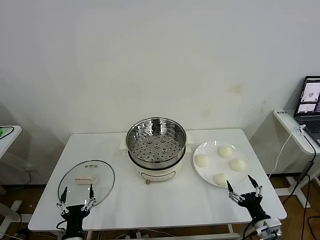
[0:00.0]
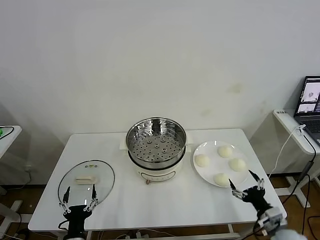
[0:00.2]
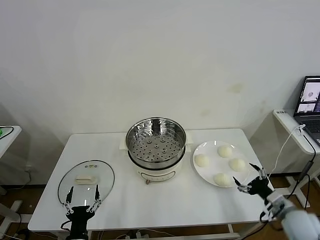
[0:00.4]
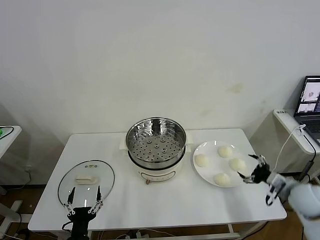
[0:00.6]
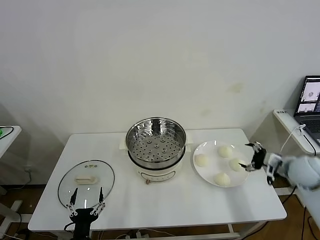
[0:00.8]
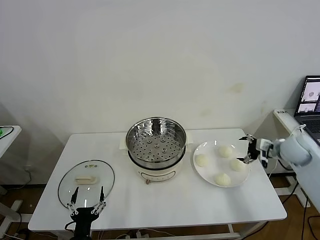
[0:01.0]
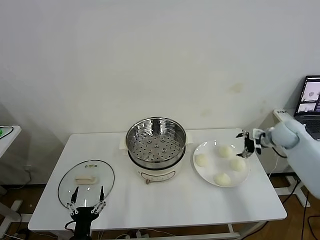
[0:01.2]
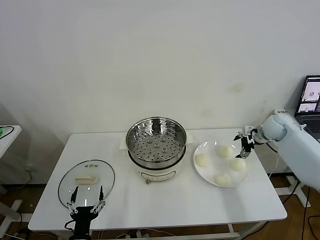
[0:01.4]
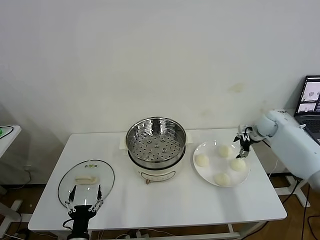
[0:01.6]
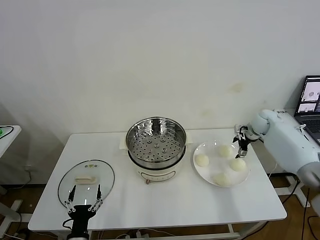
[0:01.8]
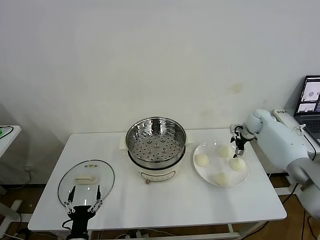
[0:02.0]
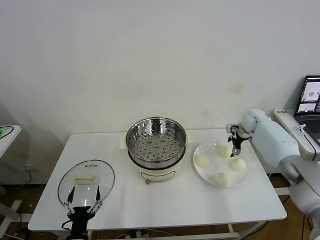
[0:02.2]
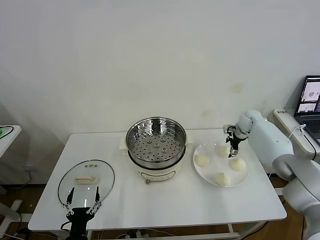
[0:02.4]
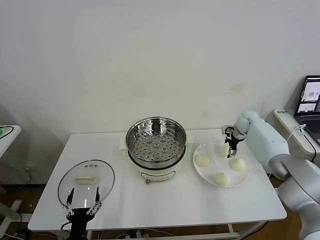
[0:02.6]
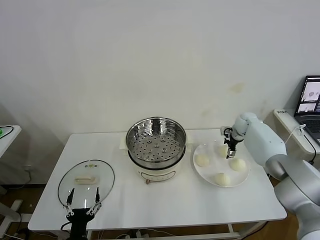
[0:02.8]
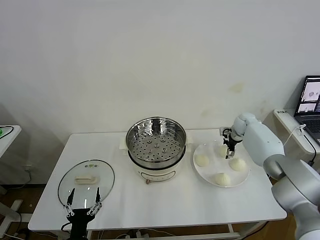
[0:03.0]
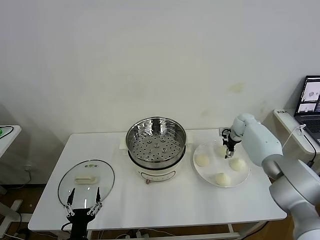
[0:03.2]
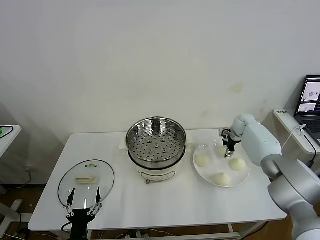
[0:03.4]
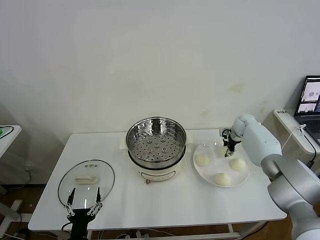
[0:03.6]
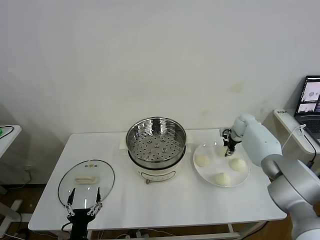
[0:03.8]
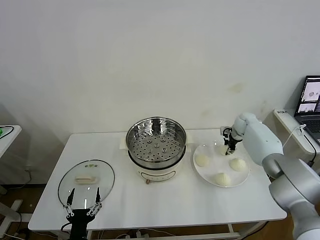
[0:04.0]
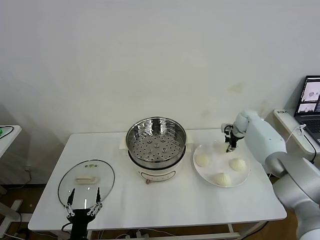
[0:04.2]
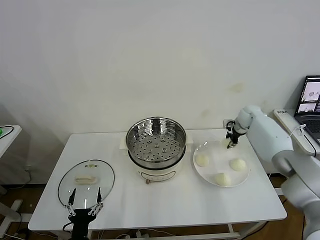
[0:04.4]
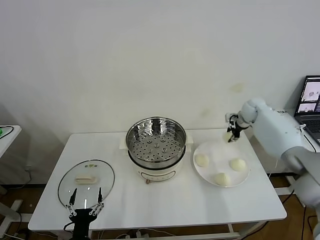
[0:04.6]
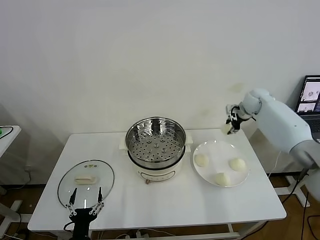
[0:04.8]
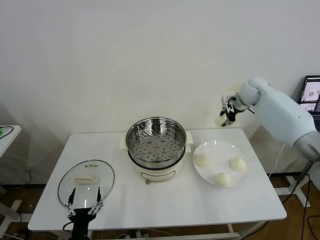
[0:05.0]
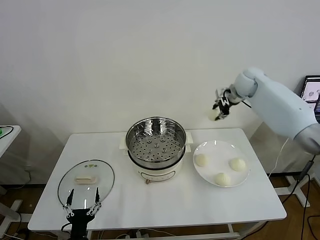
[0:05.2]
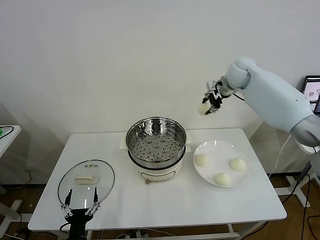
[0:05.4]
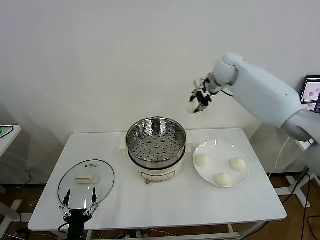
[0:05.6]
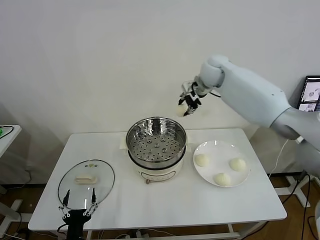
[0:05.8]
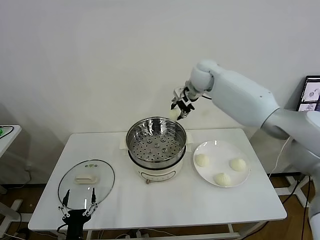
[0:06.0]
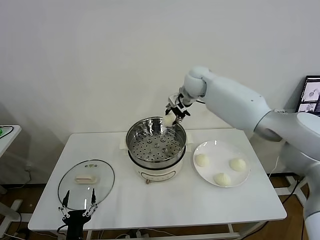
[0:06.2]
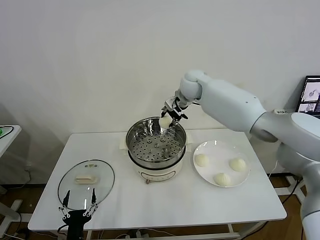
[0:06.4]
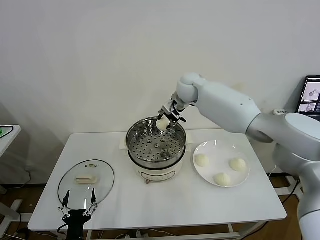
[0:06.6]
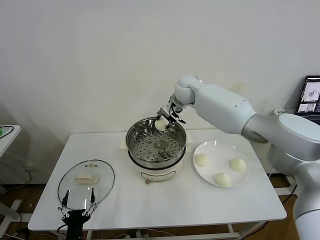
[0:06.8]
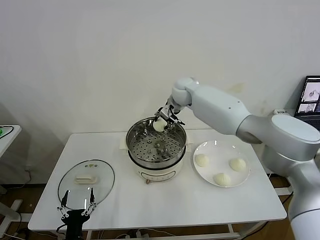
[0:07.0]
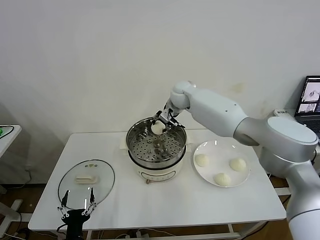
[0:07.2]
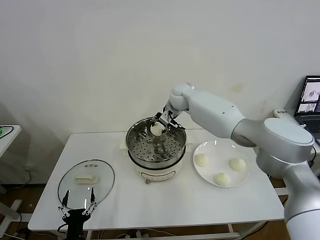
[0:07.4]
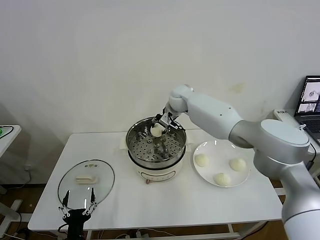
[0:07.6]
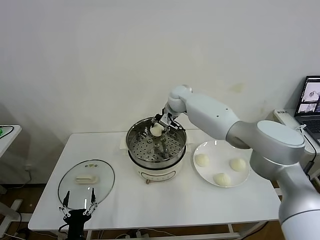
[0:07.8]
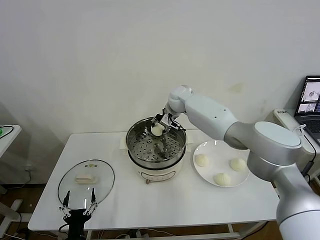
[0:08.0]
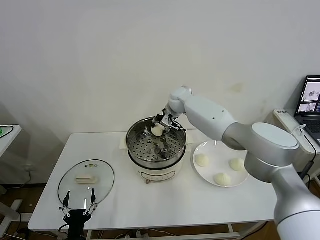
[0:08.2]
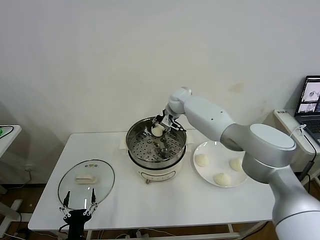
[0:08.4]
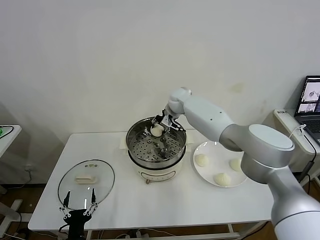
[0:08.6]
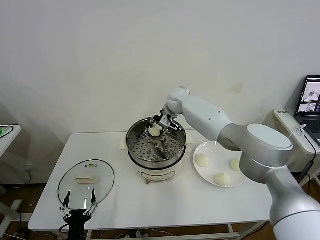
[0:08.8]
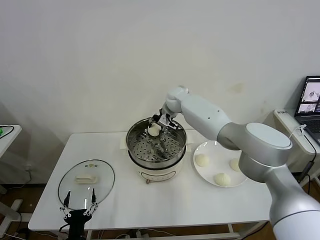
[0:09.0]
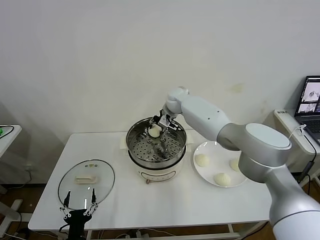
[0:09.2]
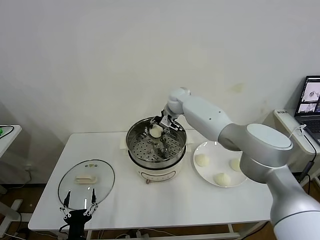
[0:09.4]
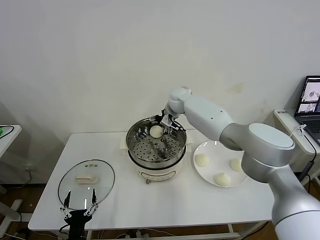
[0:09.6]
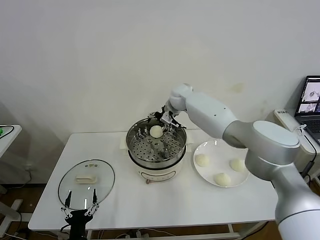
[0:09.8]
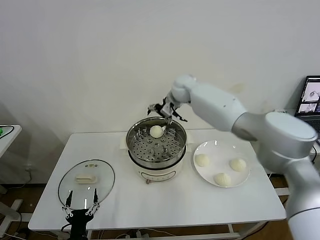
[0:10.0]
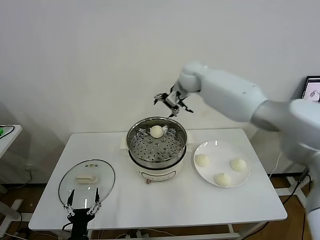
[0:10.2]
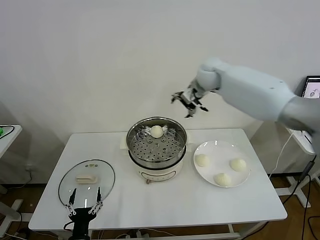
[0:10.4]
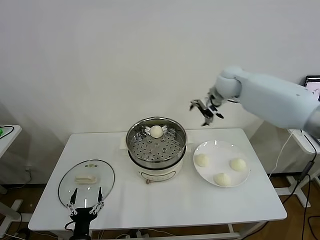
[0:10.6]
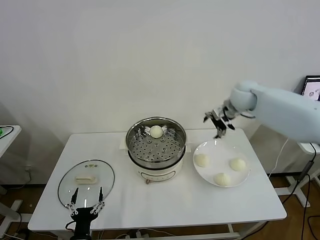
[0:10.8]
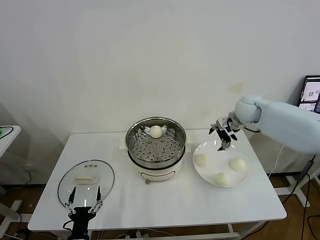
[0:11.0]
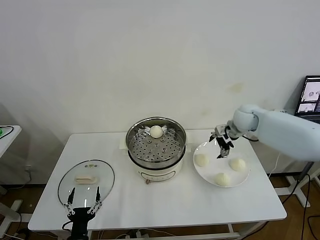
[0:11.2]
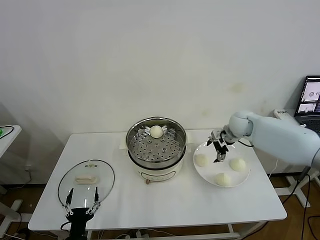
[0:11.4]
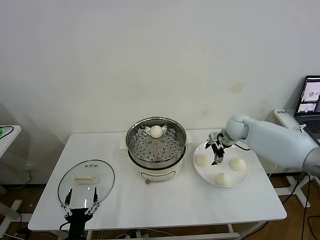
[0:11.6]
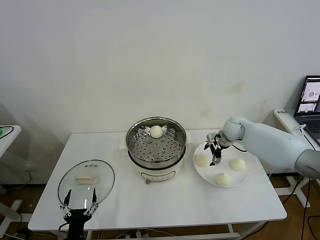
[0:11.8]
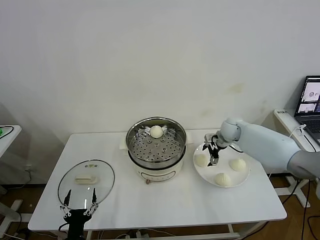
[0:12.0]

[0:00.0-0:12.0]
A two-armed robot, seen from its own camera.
Task of the whole recording: take steamed baozi put them in steamer then cover it.
Step, 0:00.0 to 0:03.8: Grasp the baozi in the plate with right gripper.
Step, 0:04.0 to 0:09.6: Place the baozi on the steamer with right gripper.
0:01.6 to 0:03.0: The right gripper shifts approximately 5 cm downward and to the left.
0:03.0 to 0:04.4: The right gripper heads upward, covering approximately 5 cm, and closes its fingers.
0:04.4 to 0:06.0: The right gripper travels to the left and upward by approximately 30 cm.
0:06.0 to 0:07.6: The right gripper heads downward and to the left, covering roughly 10 cm.
0:07.6 to 0:09.0: The grippers move only a little.
0:09.0 to 0:10.4: The right gripper shifts about 20 cm to the right and upward, and opens.
0:10.4 to 0:12.0: The right gripper is displaced downward by approximately 20 cm.

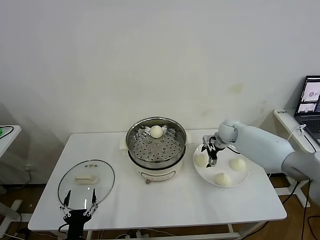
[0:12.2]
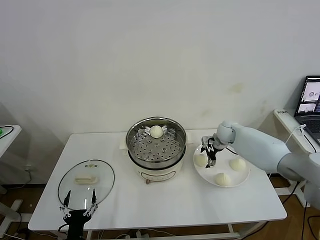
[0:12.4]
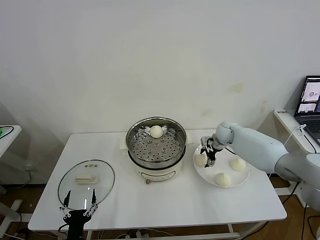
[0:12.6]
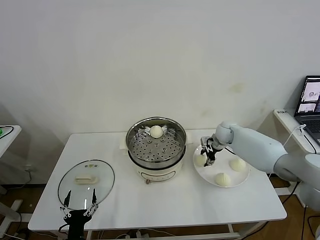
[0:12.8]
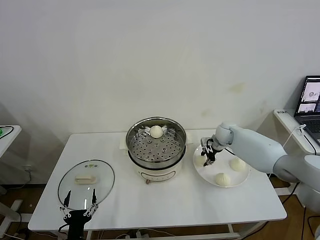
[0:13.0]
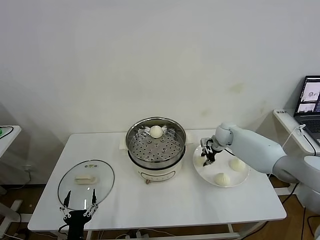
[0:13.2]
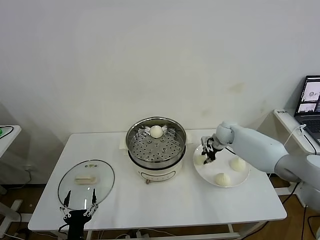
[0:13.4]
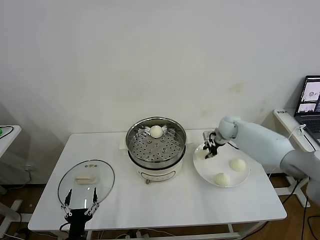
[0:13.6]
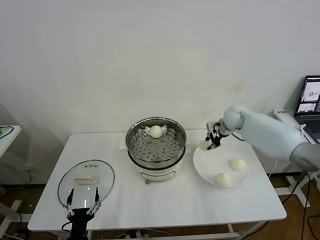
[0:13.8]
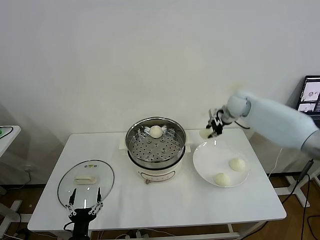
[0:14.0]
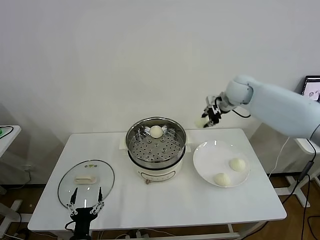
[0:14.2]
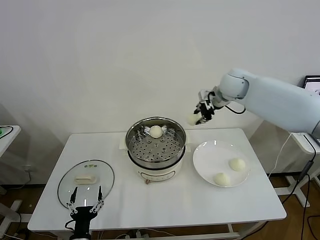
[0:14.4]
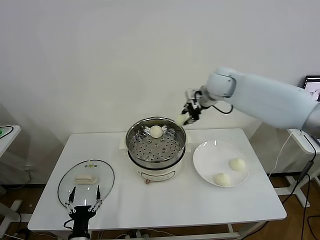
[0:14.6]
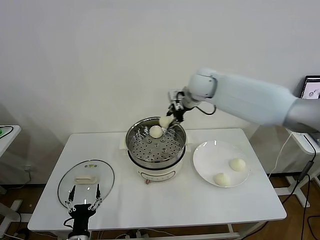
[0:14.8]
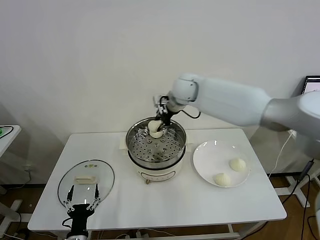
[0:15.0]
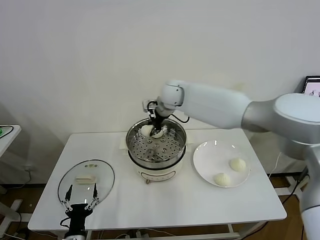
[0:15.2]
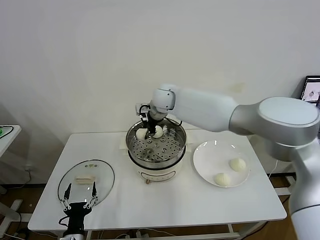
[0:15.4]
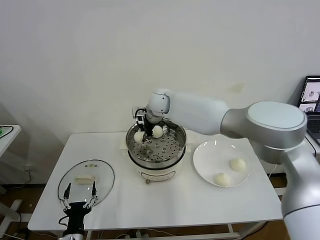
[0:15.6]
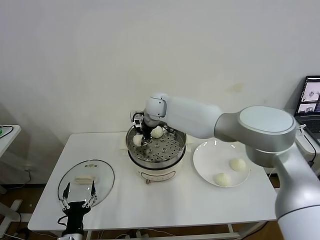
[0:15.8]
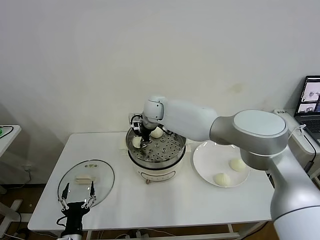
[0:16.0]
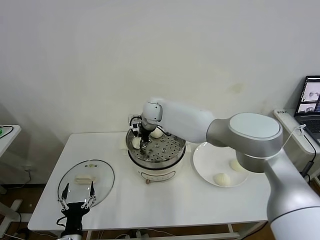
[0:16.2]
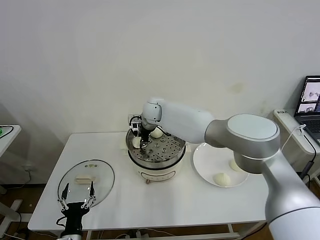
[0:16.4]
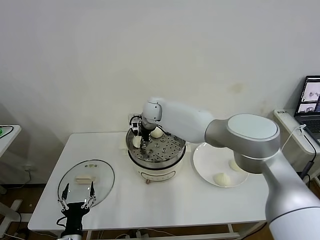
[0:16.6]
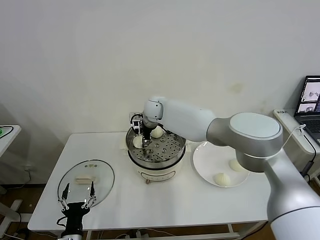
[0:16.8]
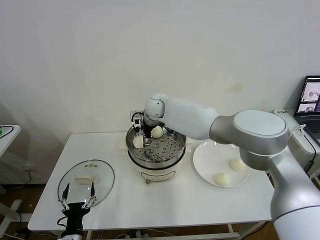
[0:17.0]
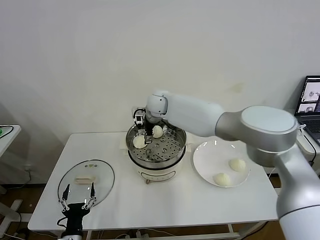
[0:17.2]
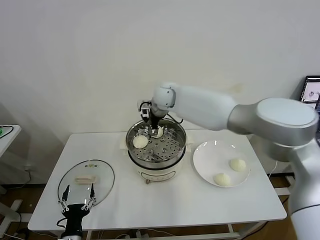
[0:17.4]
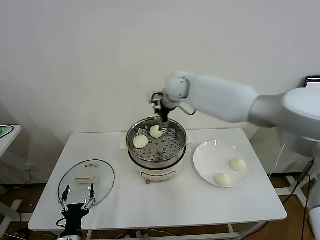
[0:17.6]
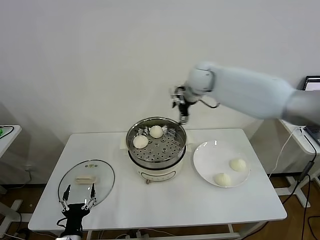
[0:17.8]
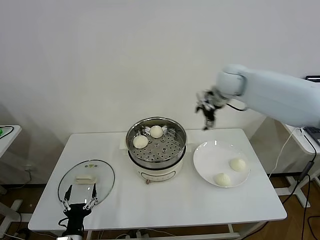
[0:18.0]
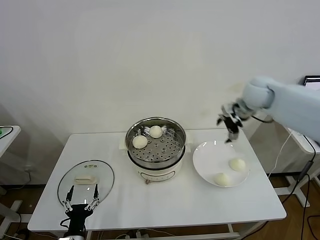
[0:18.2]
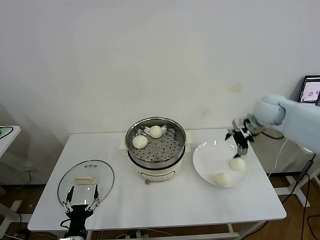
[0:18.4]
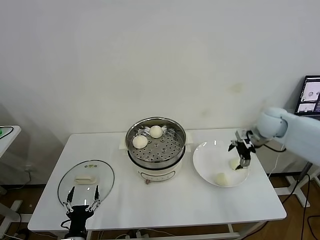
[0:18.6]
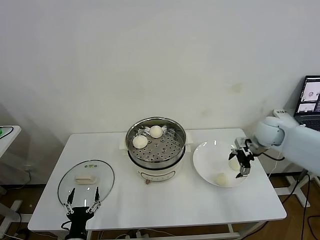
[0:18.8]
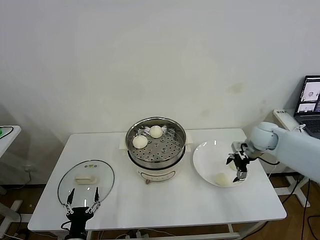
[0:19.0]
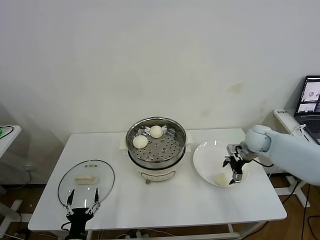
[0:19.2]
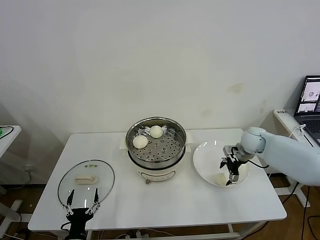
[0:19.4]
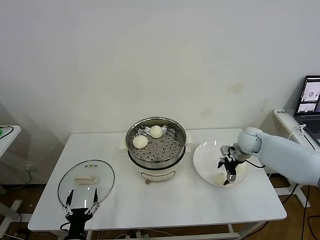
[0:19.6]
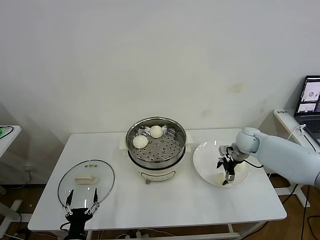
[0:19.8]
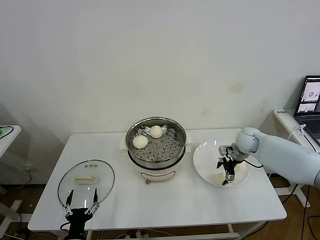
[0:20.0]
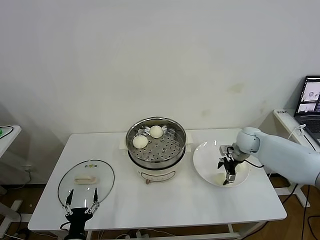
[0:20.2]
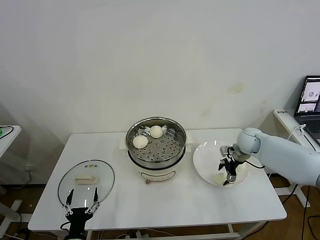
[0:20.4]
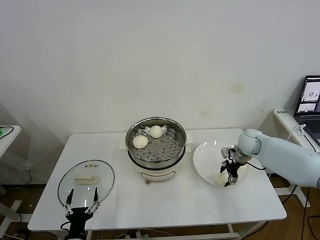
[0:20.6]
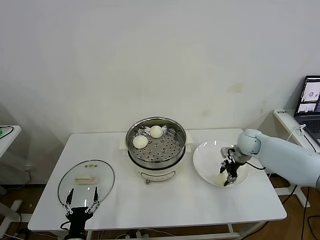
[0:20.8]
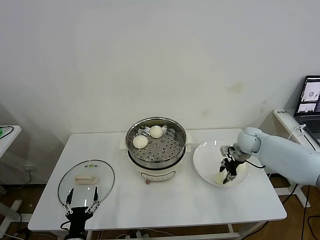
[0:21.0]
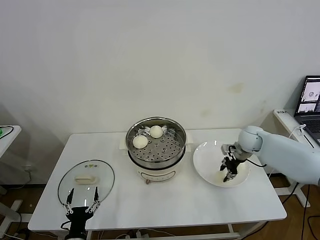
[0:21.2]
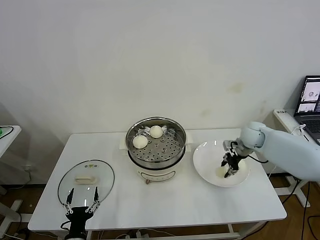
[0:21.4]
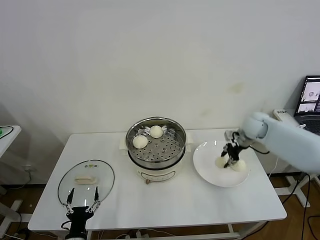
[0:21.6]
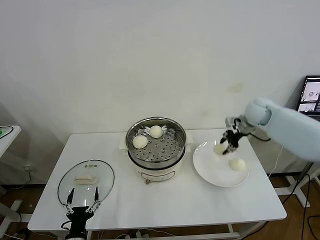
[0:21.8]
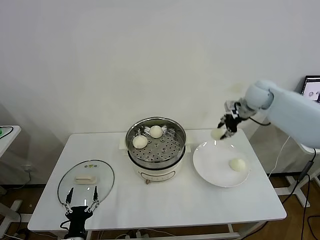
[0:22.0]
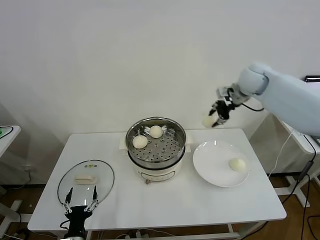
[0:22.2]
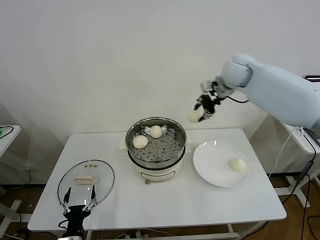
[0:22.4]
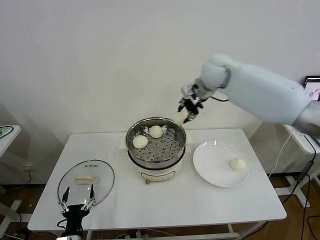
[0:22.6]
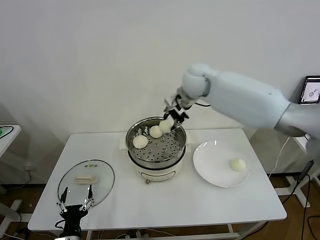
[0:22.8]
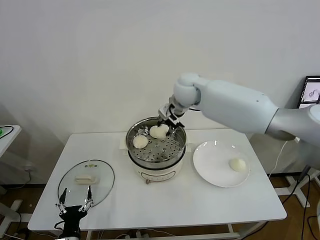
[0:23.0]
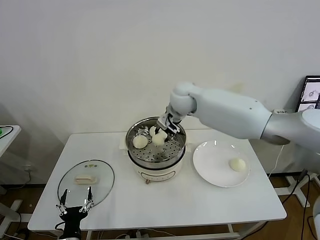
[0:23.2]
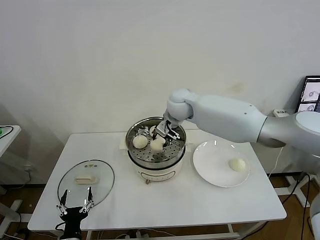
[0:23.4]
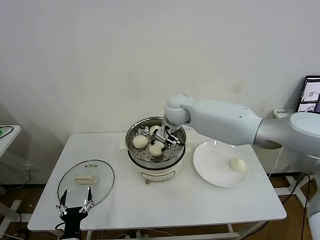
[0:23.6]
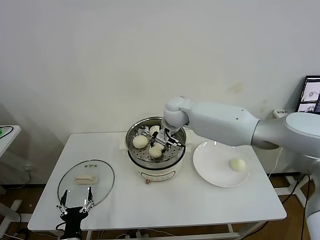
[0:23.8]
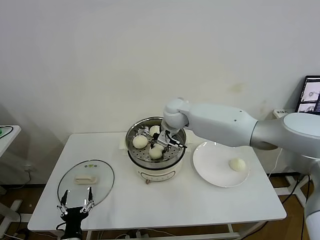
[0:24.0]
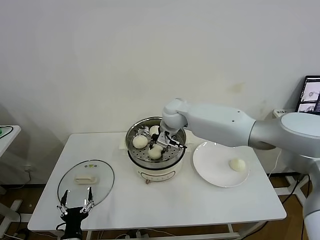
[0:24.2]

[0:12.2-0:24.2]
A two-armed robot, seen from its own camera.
Task of the whole recording: take steamed baozi put them in steamer then cover it.
Step, 0:13.4 to 0:16.8: Place the baozi on the steamer with right gripper.
Step, 0:17.2 to 0:20.6: Grasp the baozi in the plate with right gripper.
0:12.2 to 0:13.8: The right gripper shifts roughly 10 cm upward, and closes up.
0:13.8 to 0:15.2: The right gripper moves to the left, roughly 25 cm.
0:15.2 to 0:16.6: The right gripper moves downward and to the left, approximately 10 cm, and opens.
0:16.6 to 0:18.2: The right gripper travels to the right by roughly 35 cm, and opens.
0:18.2 to 0:19.8: The right gripper goes some 20 cm downward.
0:19.8 to 0:21.2: The right gripper closes.
0:21.2 to 0:22.6: The right gripper moves upward and to the left, about 30 cm.
0:22.6 to 0:24.2: The right gripper is displaced downward and to the left by roughly 15 cm.
